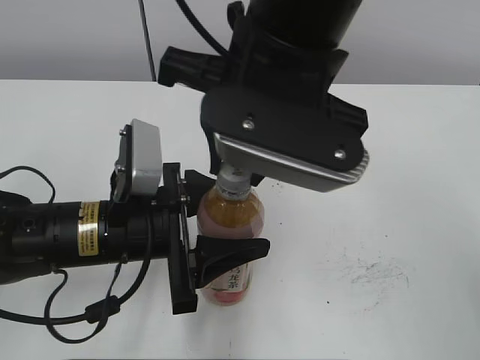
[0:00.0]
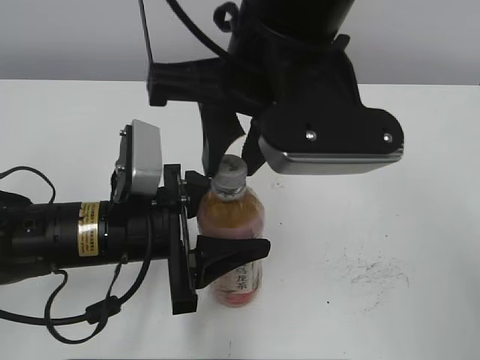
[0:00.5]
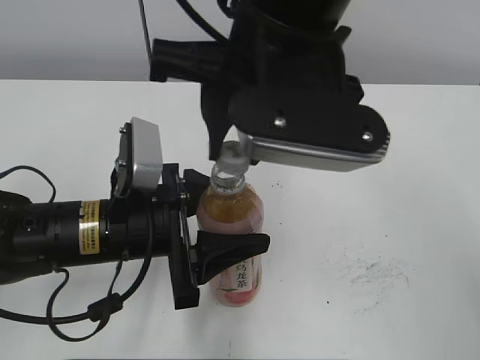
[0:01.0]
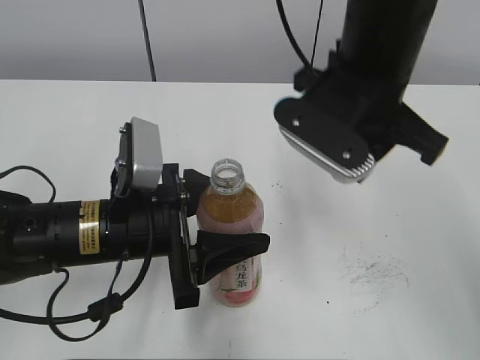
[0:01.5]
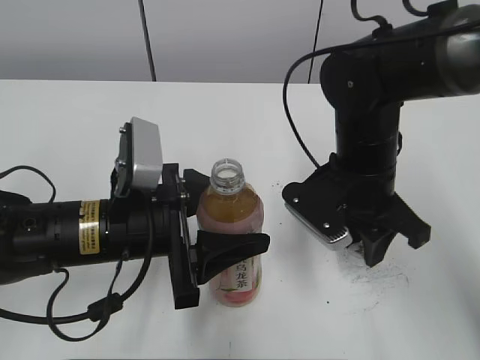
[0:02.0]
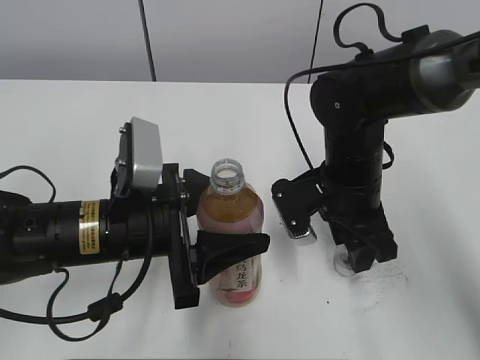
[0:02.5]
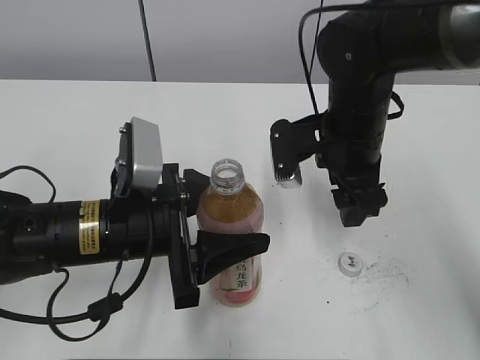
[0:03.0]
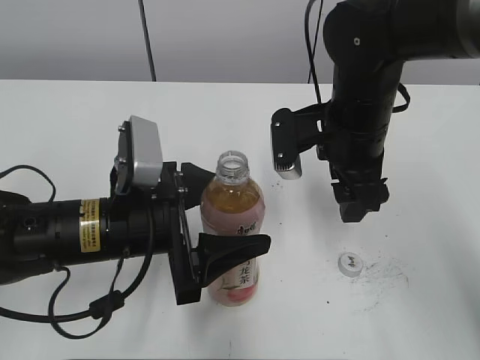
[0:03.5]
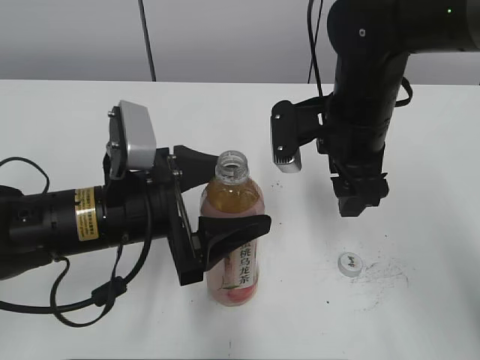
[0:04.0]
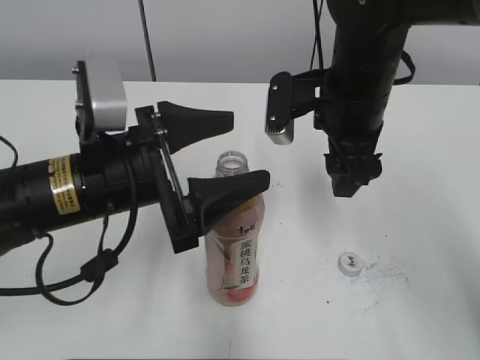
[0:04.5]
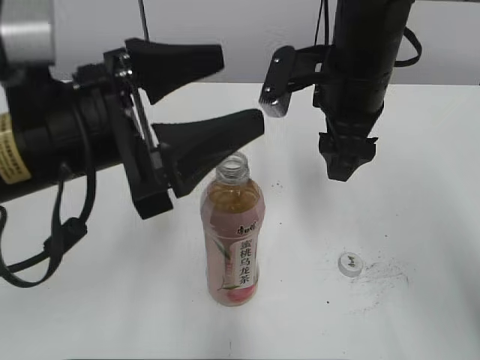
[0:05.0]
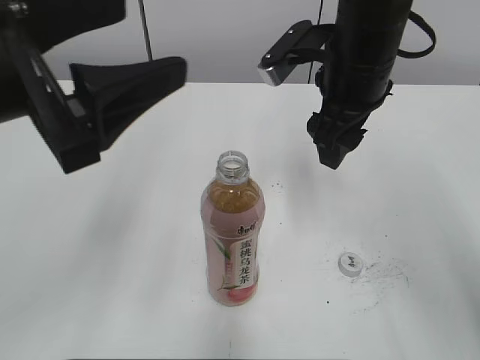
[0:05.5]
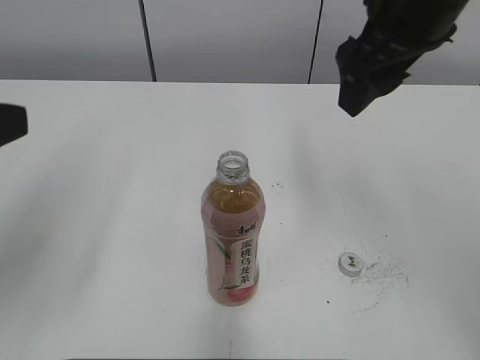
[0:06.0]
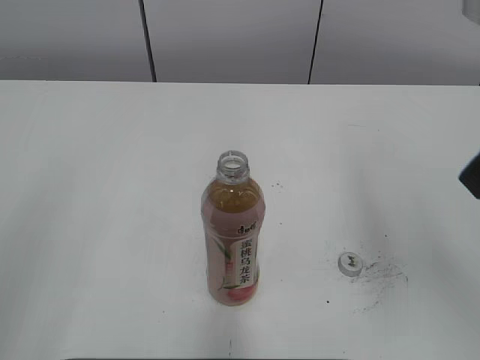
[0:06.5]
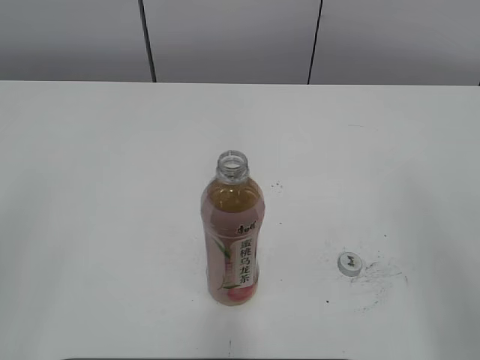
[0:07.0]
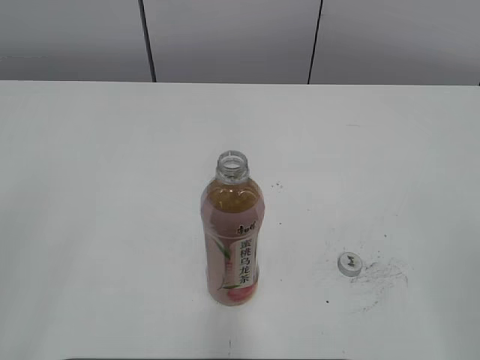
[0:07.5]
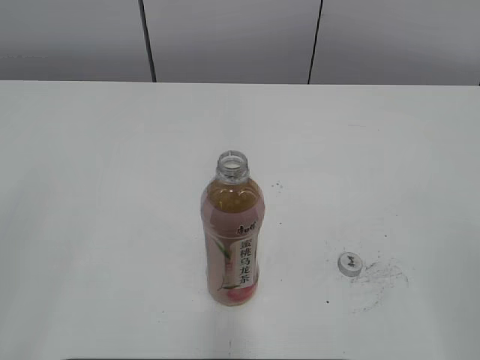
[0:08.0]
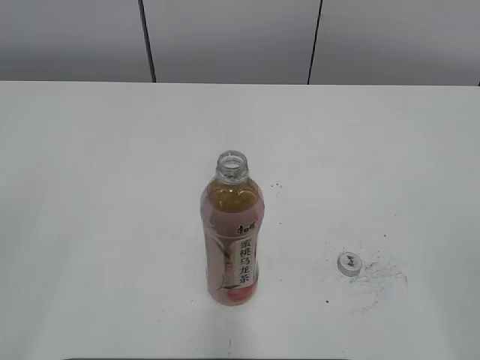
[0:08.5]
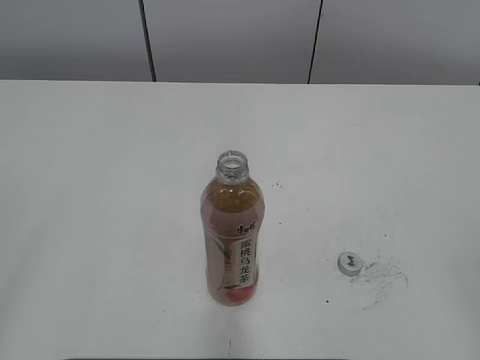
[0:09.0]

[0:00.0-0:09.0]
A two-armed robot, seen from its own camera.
Step, 0:00.5 to 0:02.5: Place the bottle cap on the right.
0:00.0 to 0:02.0: The right gripper heads downward and to the right, covering some 20 cm.
0:02.0 to 0:04.5: Both grippers move upward, some 5 cm. The right gripper opens its fingers, while the left gripper opens up.
0:04.5 to 0:07.0: The left gripper is displaced backward, to the left and upward by roughly 30 cm, while the right gripper moves backward, to the right and upward, approximately 30 cm.

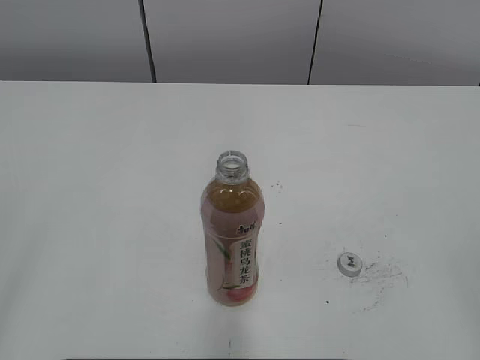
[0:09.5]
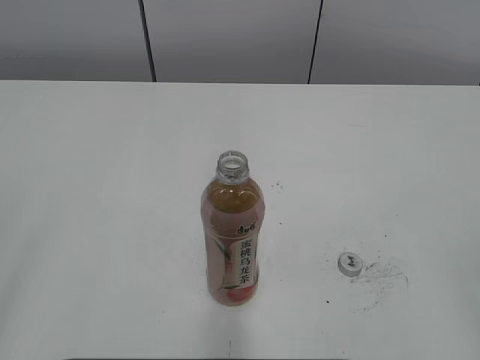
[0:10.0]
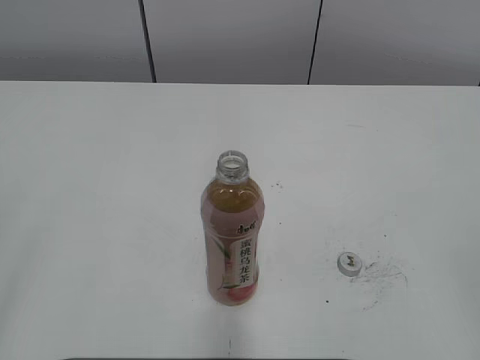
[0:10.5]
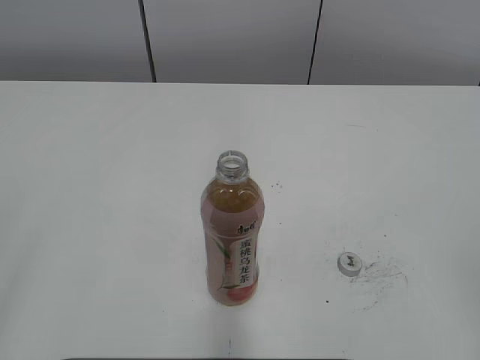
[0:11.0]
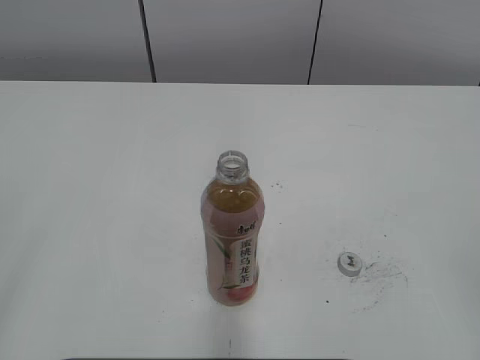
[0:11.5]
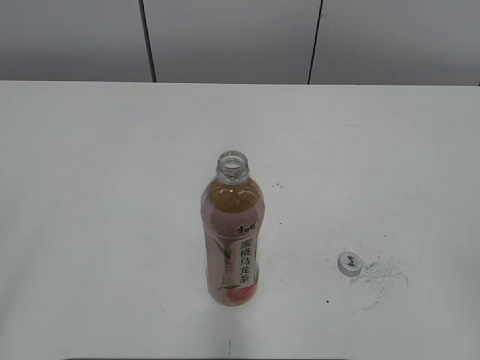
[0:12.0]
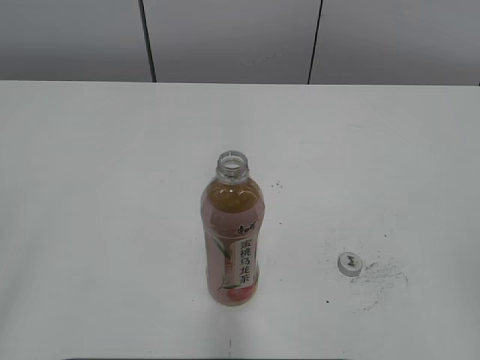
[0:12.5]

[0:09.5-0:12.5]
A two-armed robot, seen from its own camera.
0:09.5 to 0:12.5: Both grippers stay put.

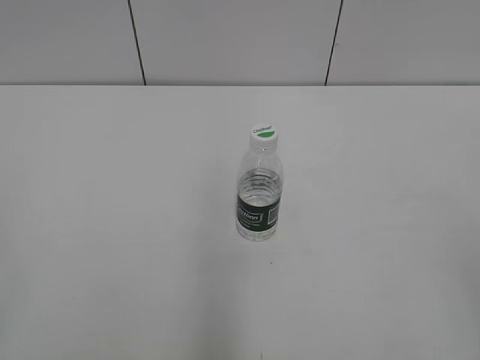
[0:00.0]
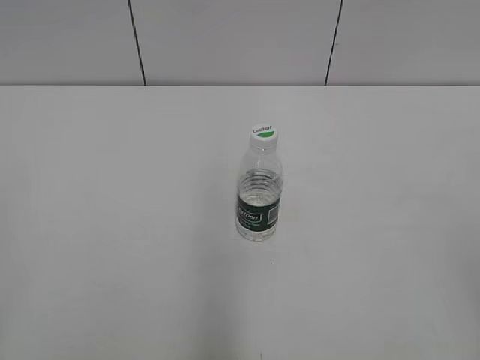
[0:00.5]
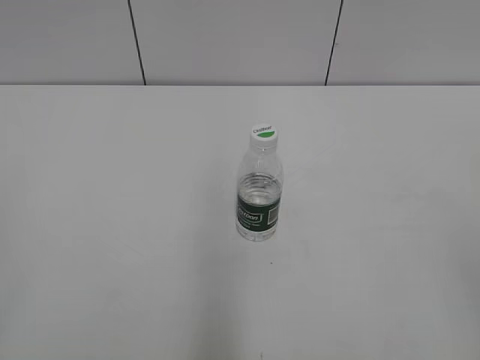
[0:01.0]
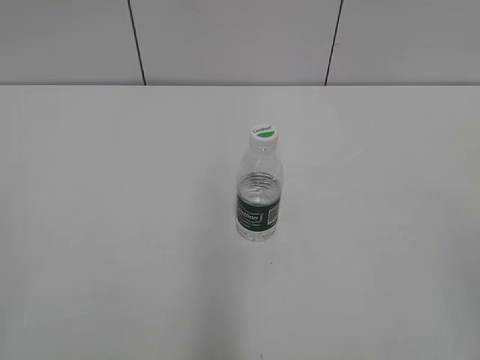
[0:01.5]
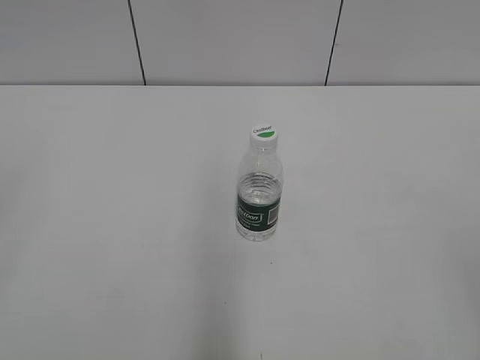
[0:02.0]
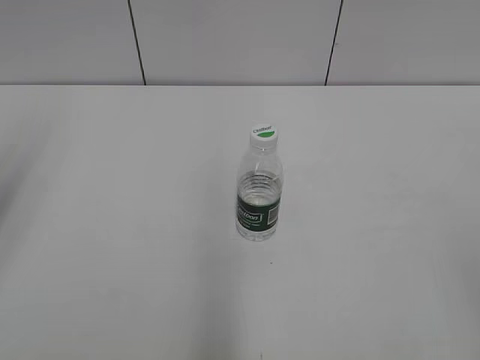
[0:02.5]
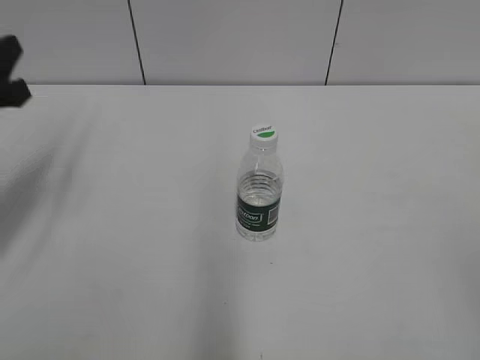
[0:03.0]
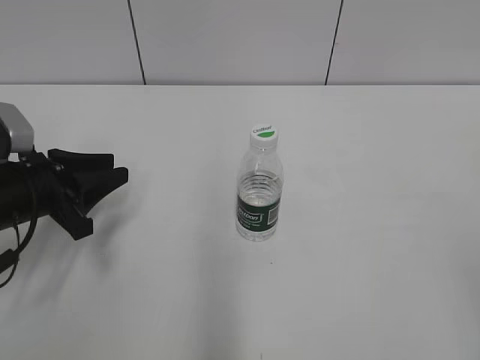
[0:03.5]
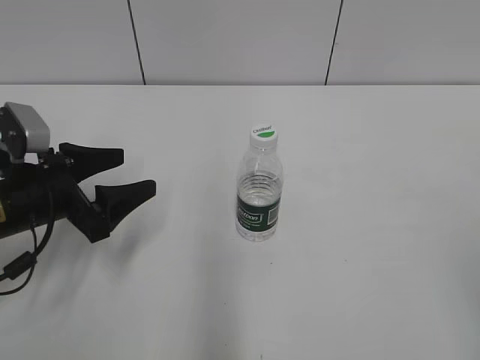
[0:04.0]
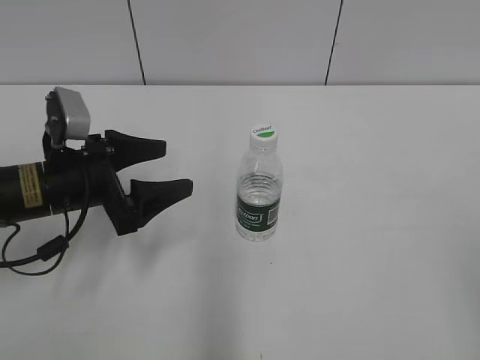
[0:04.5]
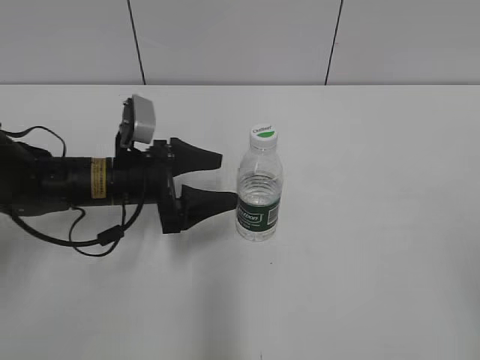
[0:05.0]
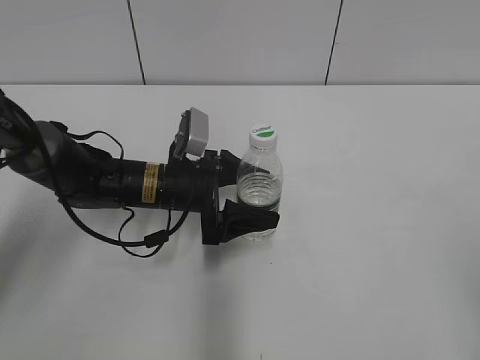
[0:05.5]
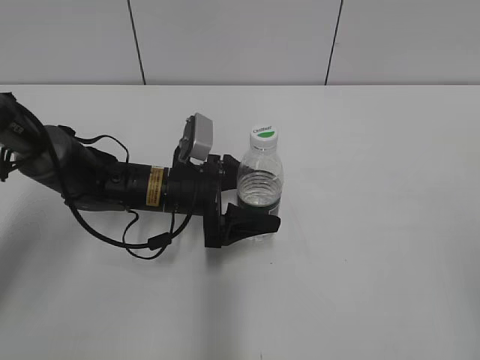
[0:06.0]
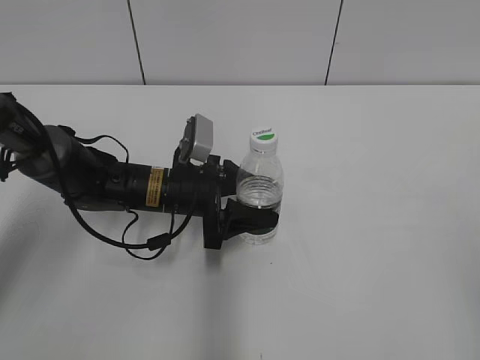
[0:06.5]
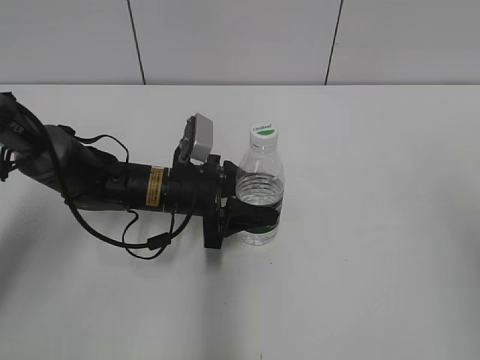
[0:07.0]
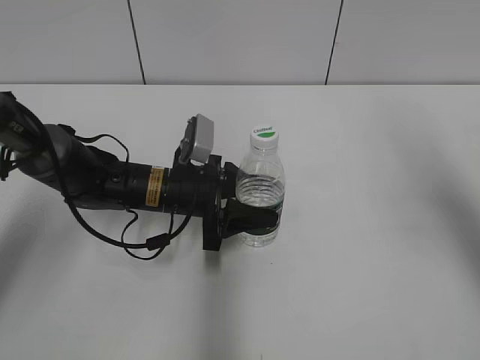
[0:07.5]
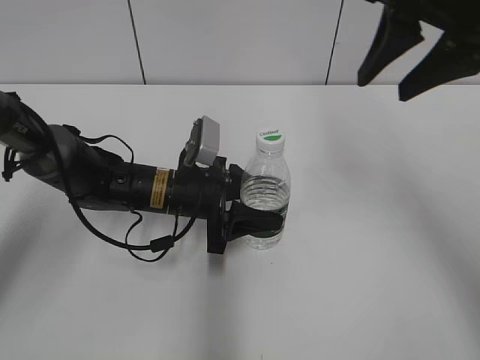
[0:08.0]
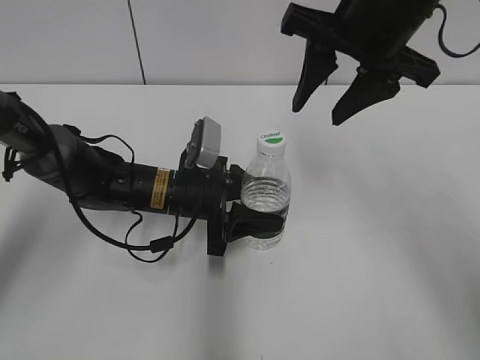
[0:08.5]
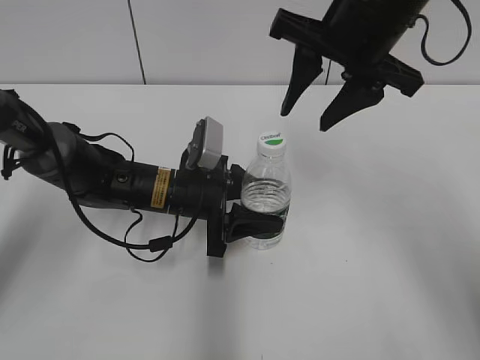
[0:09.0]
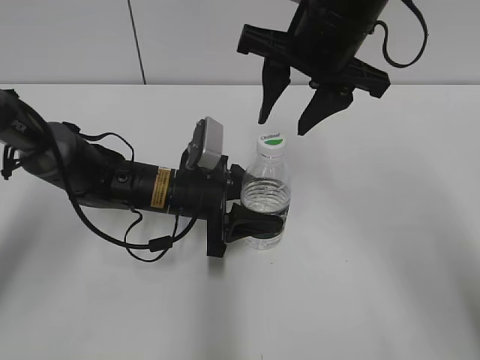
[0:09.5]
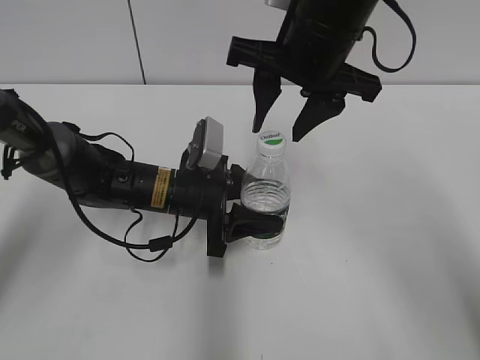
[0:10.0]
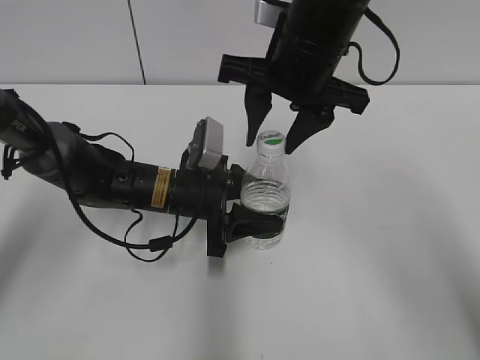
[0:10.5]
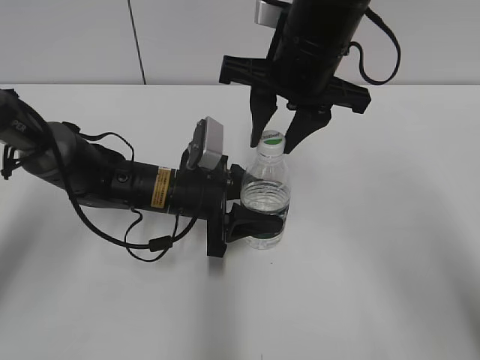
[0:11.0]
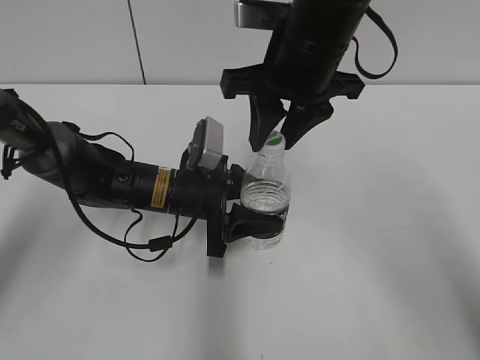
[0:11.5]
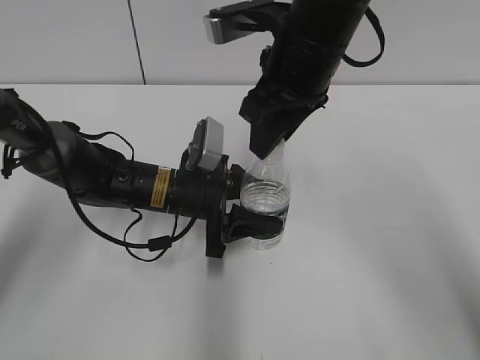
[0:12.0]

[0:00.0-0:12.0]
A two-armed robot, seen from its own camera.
Step, 0:00.0 to 0:07.5: Grasp the bottle and move it to the center of the table with the left gripper.
0:02.0 to 0:04.0: The left gripper travels forward and downward by some 35 cm, and opens.
0:04.0 to 0:06.0: The left gripper moves to the right and forward, about 15 cm, and opens.
0:06.0 to 0:08.0: The right gripper is displaced forward and to the left by roughly 30 cm. Meanwhile the left gripper closes up.
0:08.0 to 0:10.0: The right gripper goes roughly 15 cm to the left and downward.

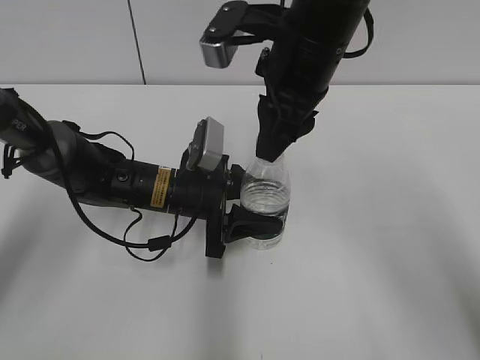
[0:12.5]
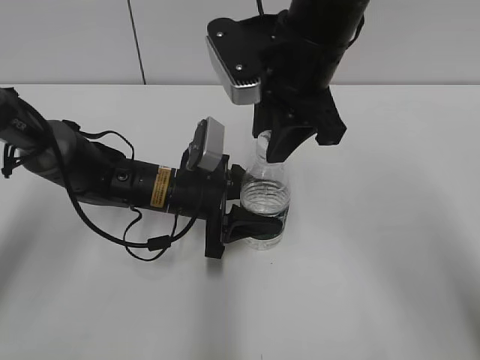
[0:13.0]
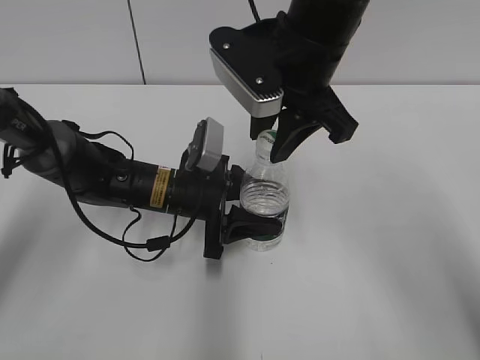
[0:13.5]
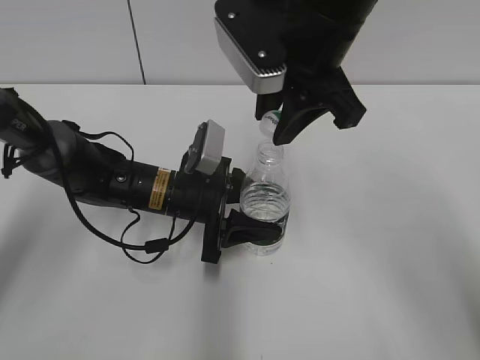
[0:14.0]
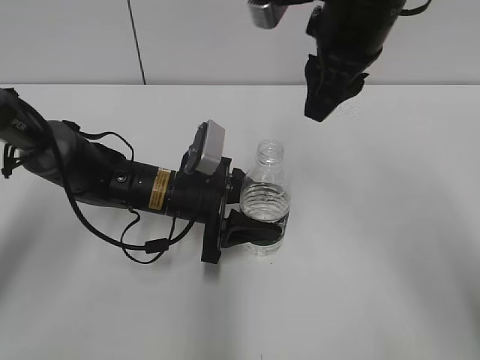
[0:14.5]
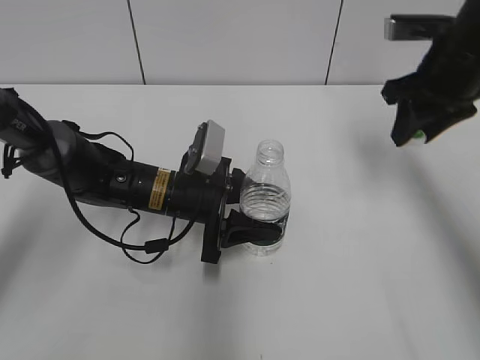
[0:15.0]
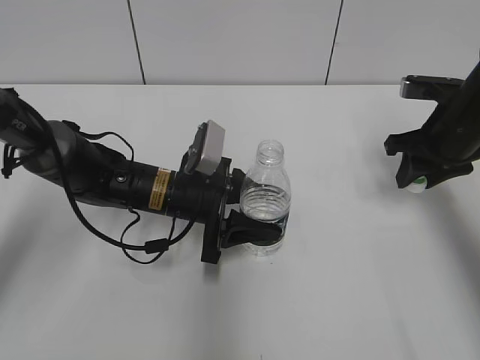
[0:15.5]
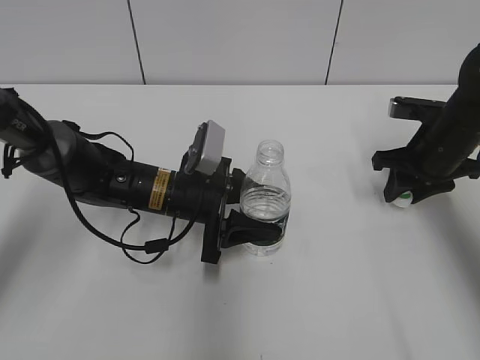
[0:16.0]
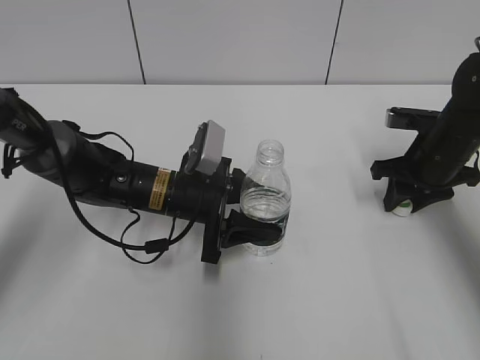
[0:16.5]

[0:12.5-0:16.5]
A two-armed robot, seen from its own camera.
0:14.5 to 0:16.5: The right gripper moves downward and to the right, some 25 cm.
